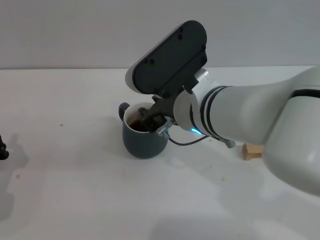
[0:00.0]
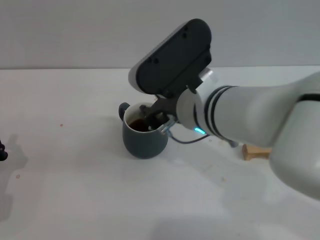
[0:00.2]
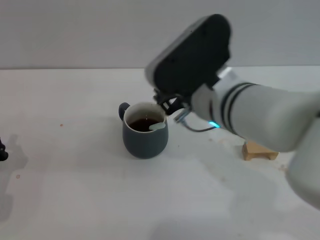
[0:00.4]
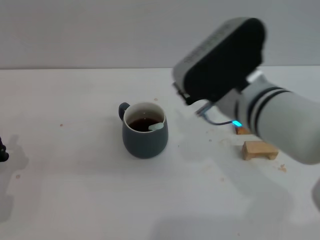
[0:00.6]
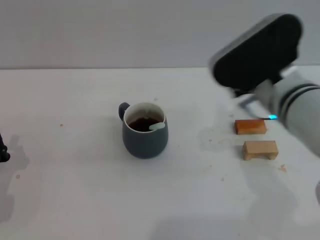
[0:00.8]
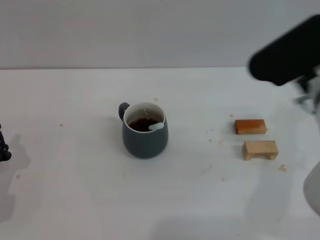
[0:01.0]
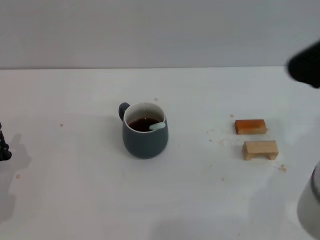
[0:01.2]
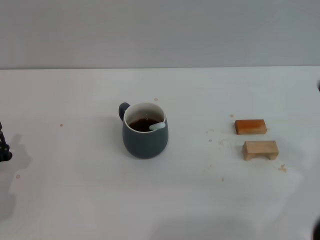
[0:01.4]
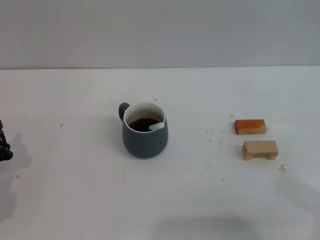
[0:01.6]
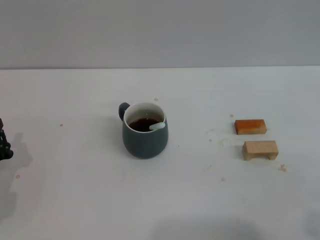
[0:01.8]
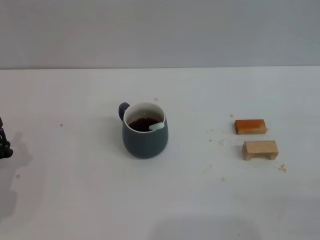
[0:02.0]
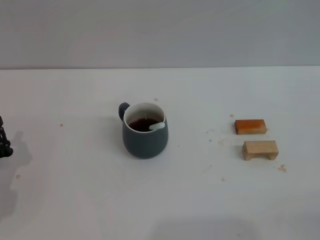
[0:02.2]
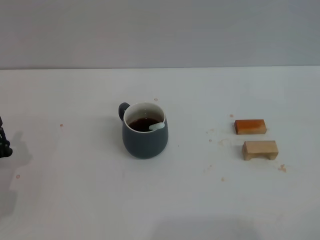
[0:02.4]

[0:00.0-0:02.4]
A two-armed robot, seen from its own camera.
Task of the whole recording: Move the grey cup to the center, lift the blue spoon, stir it three times in the cup, and put the spoon into the cup.
0:00.0 to 0:01.2: The right gripper is displaced to the right by some 15 cm.
0:01.2 to 0:02.4: The right gripper travels backward, downward and to the right by roughly 30 cm.

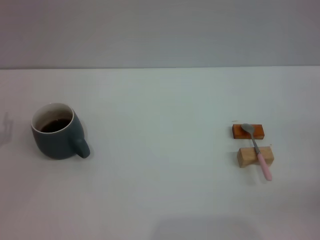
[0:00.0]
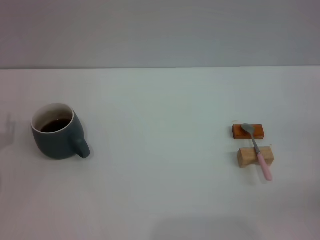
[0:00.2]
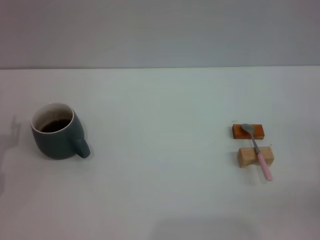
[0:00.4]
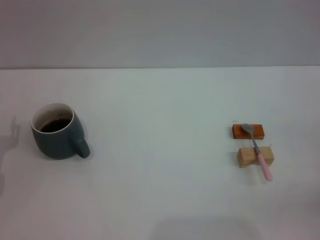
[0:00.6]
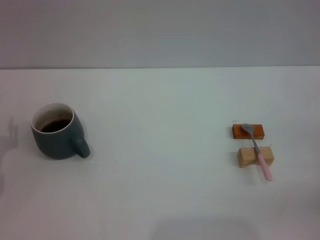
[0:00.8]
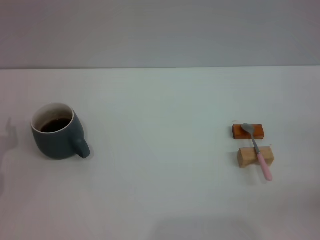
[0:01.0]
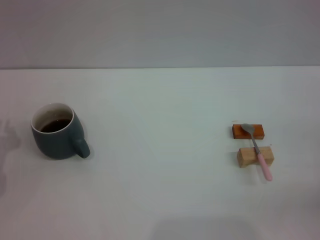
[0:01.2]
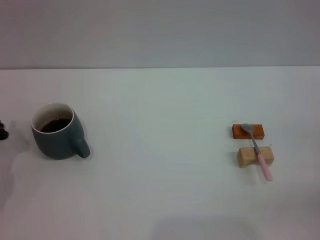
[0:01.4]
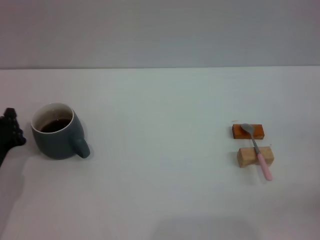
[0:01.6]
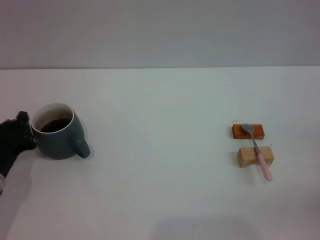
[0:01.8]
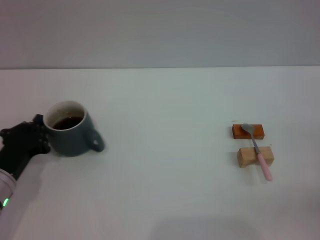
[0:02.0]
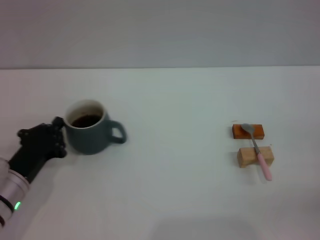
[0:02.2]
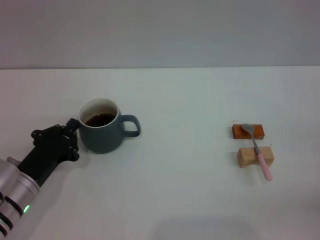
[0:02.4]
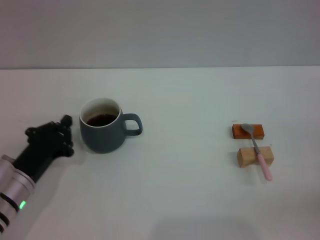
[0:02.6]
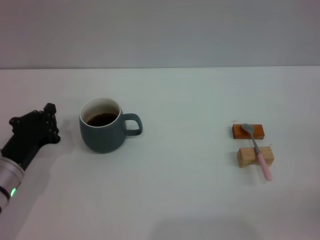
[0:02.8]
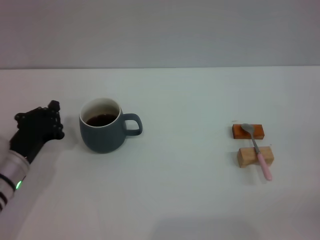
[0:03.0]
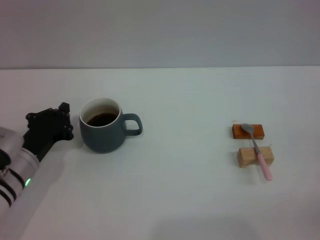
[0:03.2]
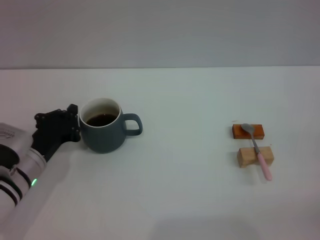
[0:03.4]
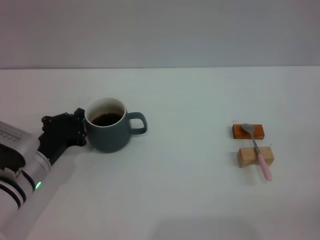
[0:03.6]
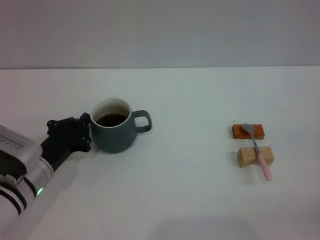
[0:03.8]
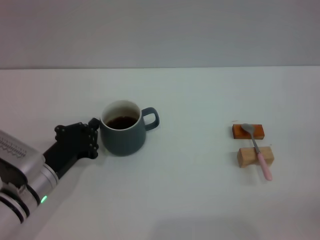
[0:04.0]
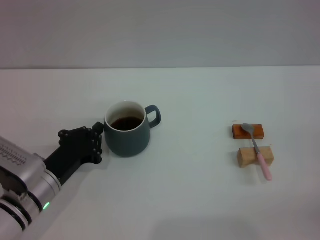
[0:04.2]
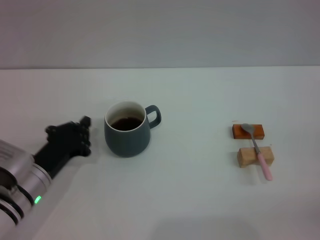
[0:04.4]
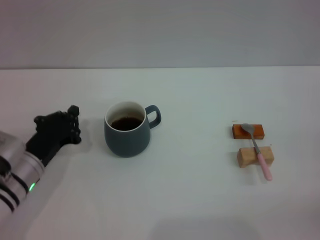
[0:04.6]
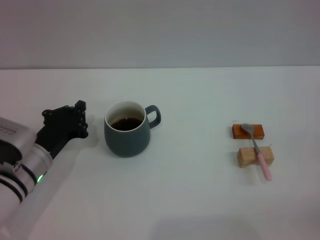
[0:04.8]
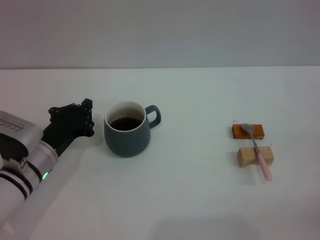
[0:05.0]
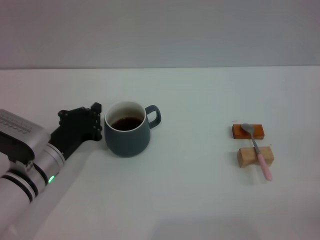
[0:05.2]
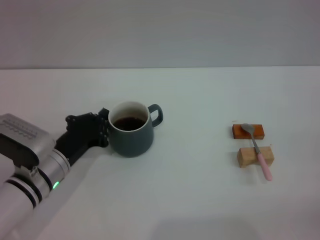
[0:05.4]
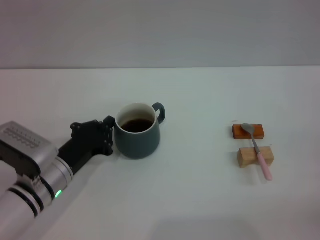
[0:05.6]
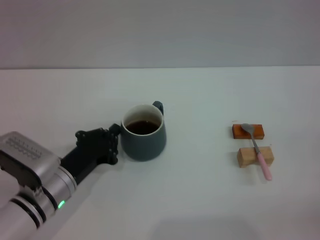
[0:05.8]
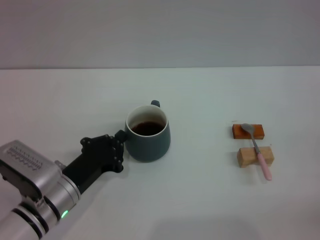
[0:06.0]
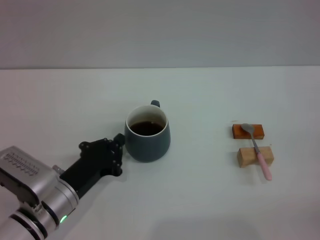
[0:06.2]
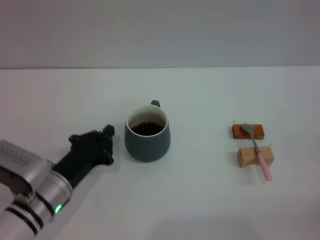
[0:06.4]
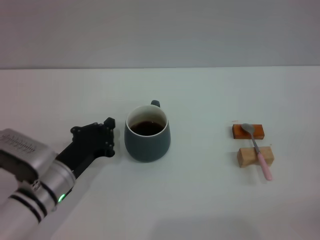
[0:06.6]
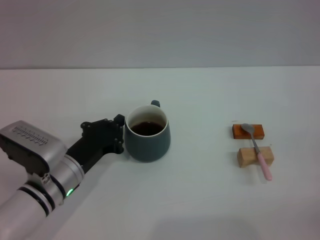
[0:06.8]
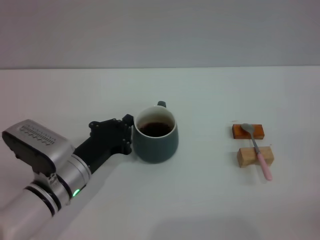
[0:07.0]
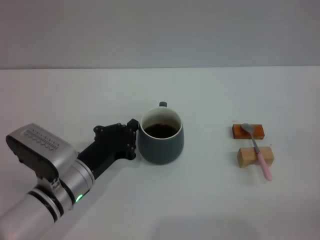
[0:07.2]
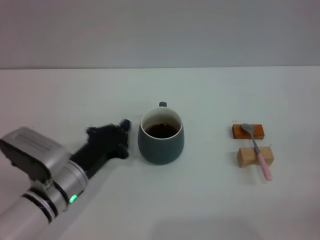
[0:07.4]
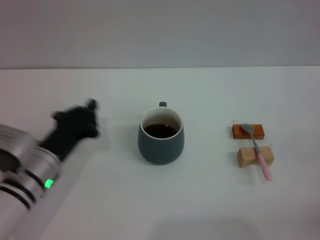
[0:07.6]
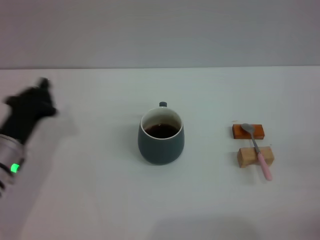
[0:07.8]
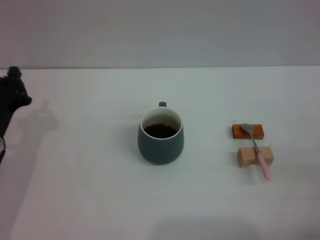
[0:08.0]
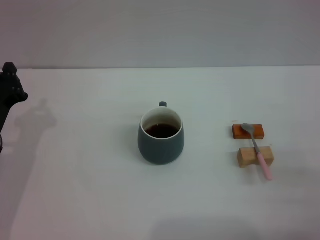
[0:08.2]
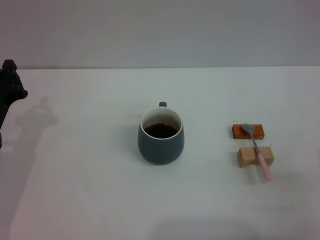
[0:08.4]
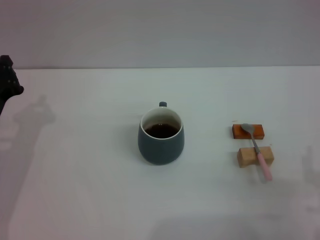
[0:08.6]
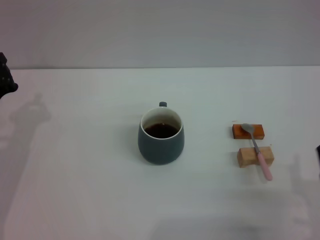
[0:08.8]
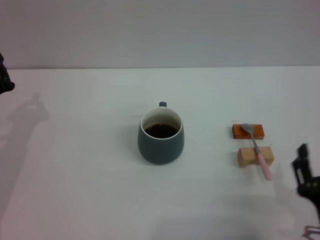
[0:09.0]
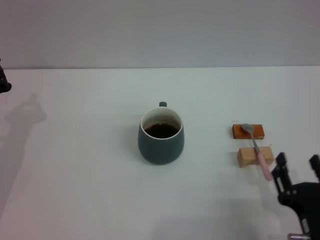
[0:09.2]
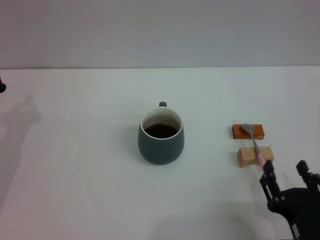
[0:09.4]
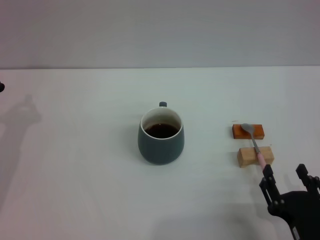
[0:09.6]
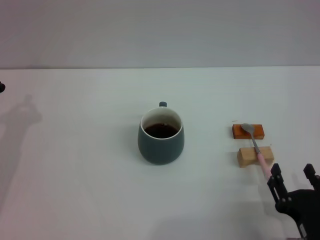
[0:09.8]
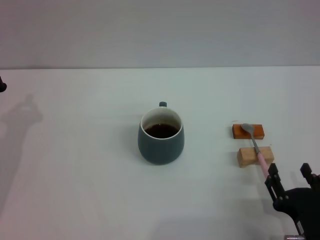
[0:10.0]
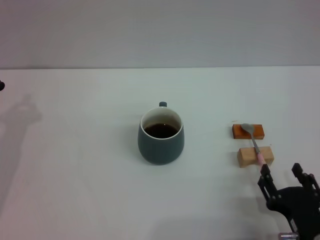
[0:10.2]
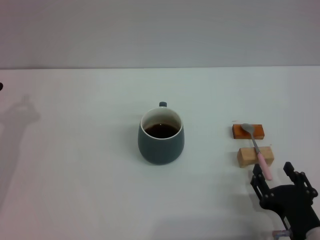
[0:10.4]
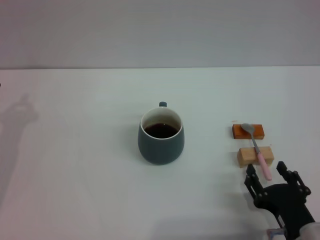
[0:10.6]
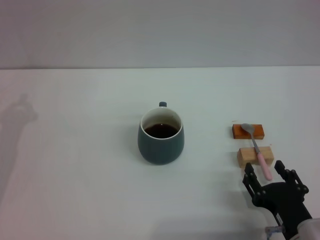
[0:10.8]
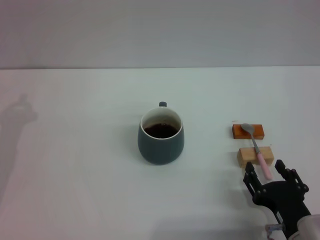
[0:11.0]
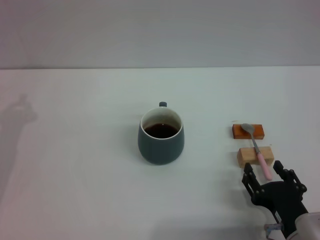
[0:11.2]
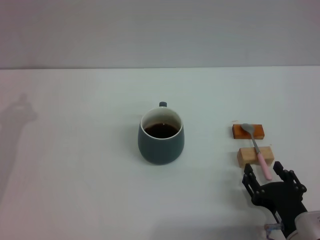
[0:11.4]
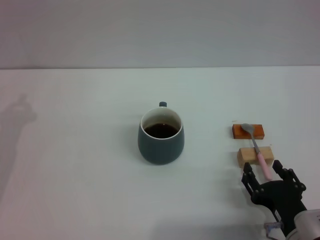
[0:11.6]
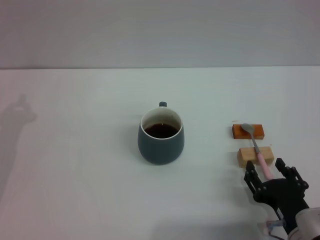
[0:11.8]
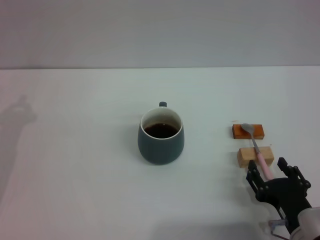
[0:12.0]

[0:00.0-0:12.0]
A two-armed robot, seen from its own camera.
Task of the whole recording: Move the grey cup to the center, lift the pink spoon, stir it three times in the cup, and put the spoon into the cup.
Step, 0:00.0 to 0:07.4: Move the cup with coffee to the center of view with the left gripper.
0:00.0 to 0:01.6: The left gripper closes its fingers.
0:01.6 to 0:03.0: The grippers move only a little.
0:03.0 to 0:04.4: There are only small adjustments of the grippers.
0:04.4 to 0:07.6: There are only small adjustments of the grippers.
0:07.6 to 0:09.0: The left gripper moves to the left, some 10 cm. Meanwhile the right gripper travels to the left and backward by roughly 20 cm.
0:09.0 to 0:10.4: The grippers move only a little.
0:10.4 to 0:12.0: The grippers move only a little.

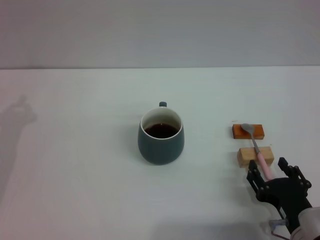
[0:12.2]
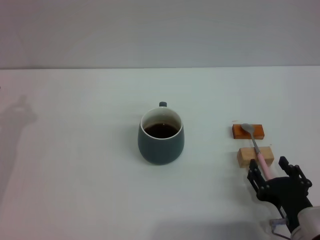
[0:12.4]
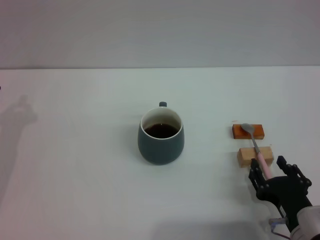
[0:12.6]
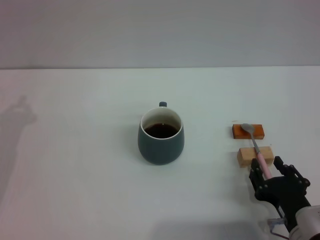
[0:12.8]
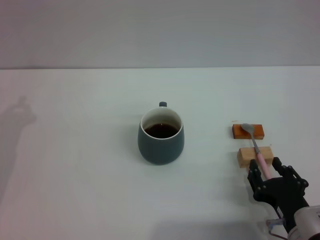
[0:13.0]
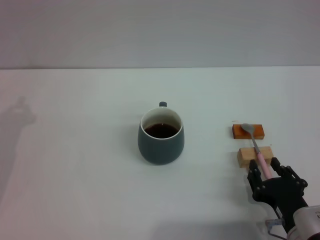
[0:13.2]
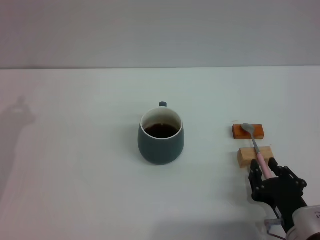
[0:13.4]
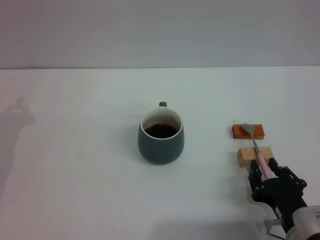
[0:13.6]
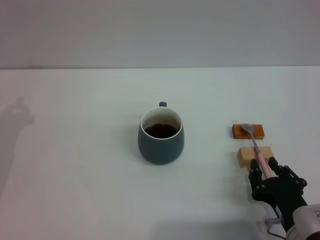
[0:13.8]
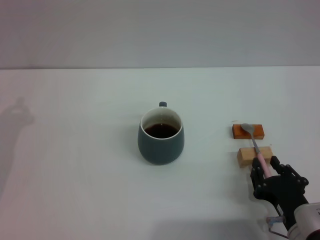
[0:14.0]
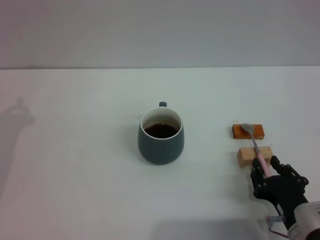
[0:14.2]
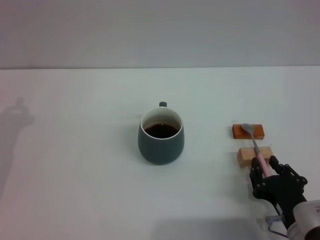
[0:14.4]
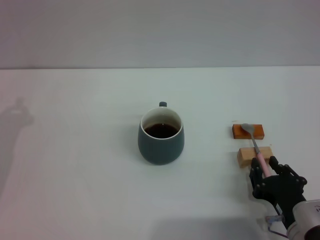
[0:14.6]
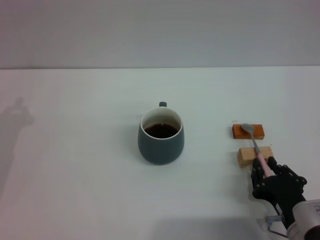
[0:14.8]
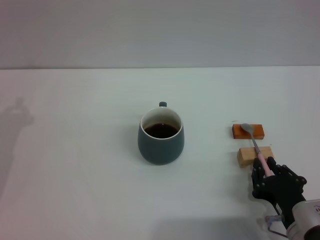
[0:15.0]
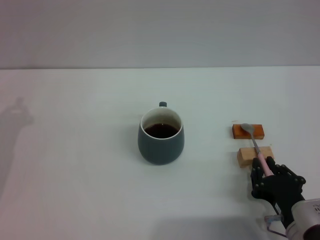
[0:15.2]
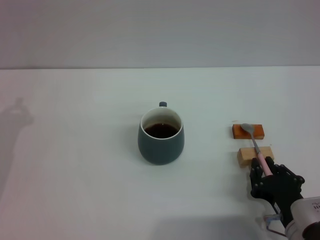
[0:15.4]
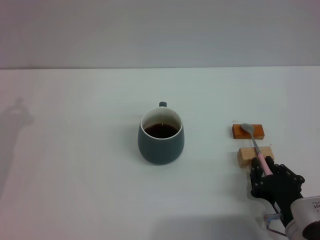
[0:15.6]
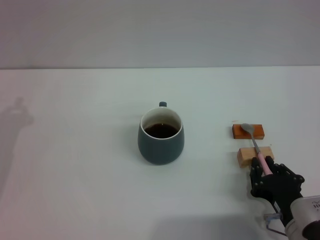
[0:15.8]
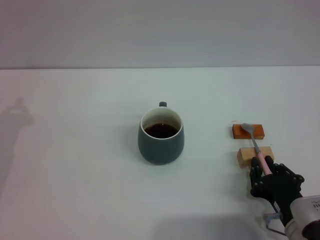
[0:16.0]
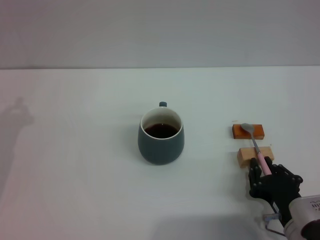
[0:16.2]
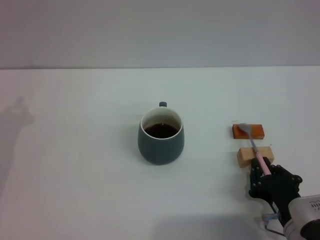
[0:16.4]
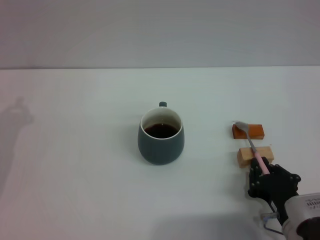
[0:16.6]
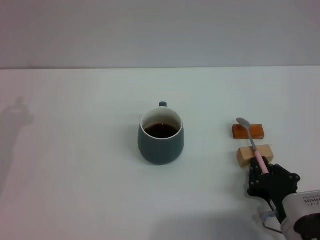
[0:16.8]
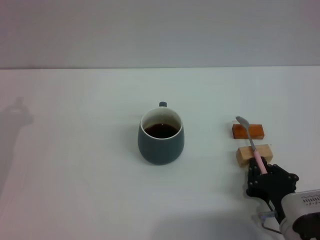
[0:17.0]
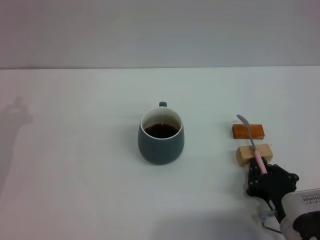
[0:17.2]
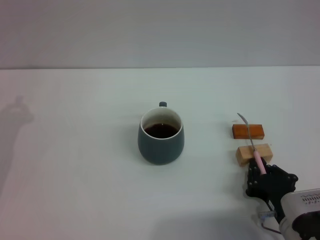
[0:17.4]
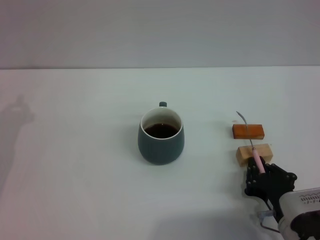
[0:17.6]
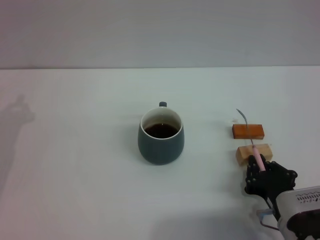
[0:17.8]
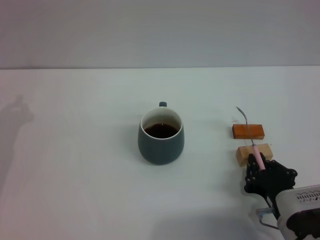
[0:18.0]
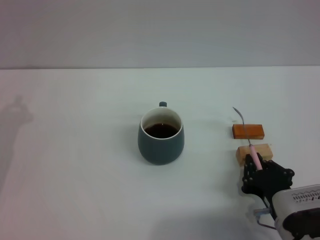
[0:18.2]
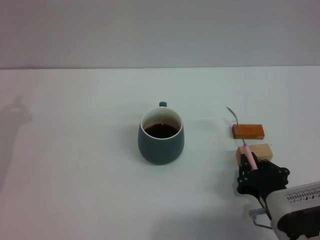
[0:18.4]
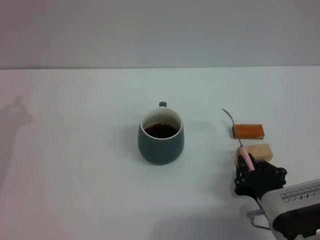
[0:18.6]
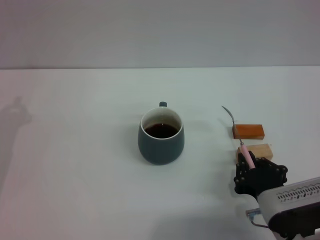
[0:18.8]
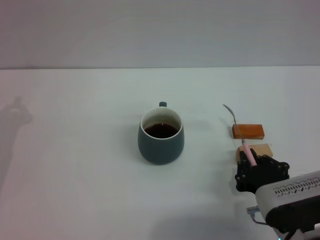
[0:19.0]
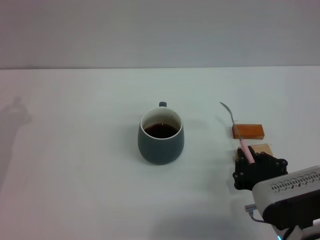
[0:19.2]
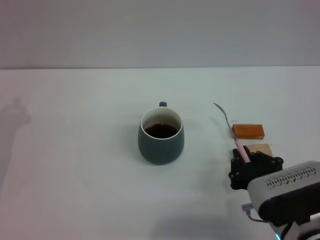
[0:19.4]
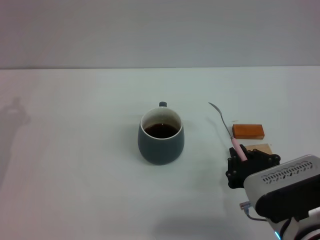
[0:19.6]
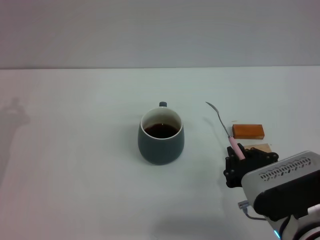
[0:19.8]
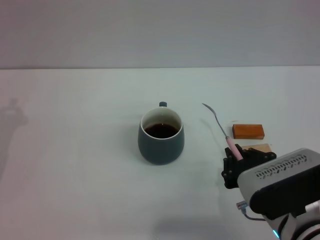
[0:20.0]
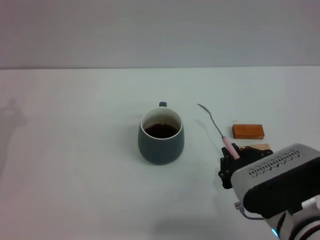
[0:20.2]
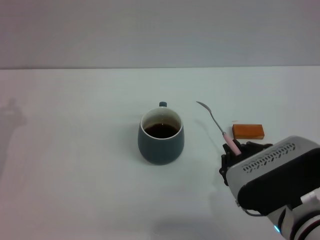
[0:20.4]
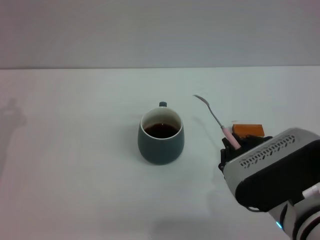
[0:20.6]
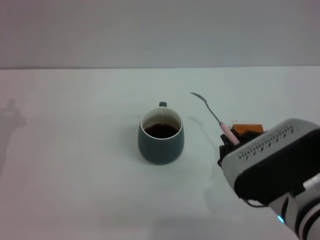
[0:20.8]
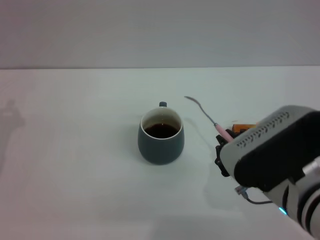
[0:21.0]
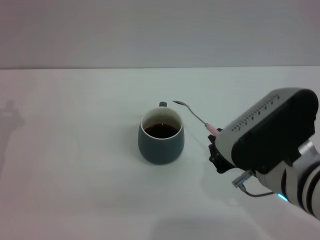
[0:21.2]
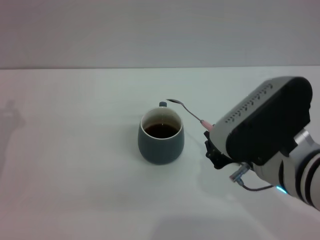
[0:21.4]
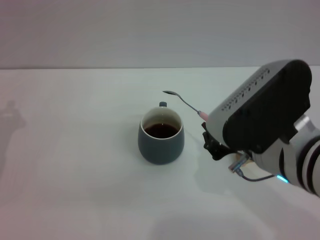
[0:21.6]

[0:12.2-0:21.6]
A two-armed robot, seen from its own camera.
Task of the whole recording: Move the grey cup to the center, lift the pink spoon, stir it three times in the cup, and put the spoon into the cup.
Step, 0:12.2 to 0:20.2: Pick up the spoon with the right gripper.
0:12.2 to 0:13.8: The right gripper closes.
0:13.8 to 0:15.4: Both grippers stay about where they are.
0:15.4 to 0:17.0: Neither gripper changes place.
0:17.0 to 0:18.4: The grippers stay close to where they were, moving slightly.
0:18.4 to 0:20.0: The right gripper goes roughly 5 cm upward.
0:20.0 to 0:21.6: The right gripper travels upward by approximately 10 cm.
